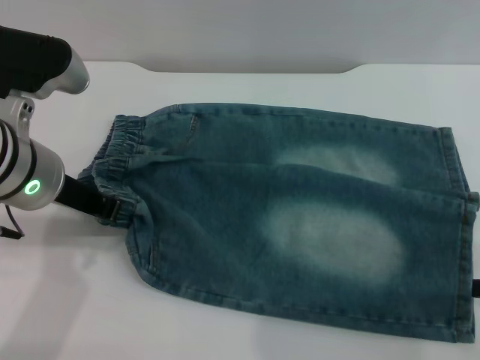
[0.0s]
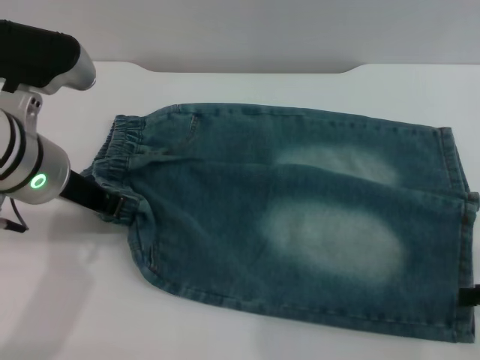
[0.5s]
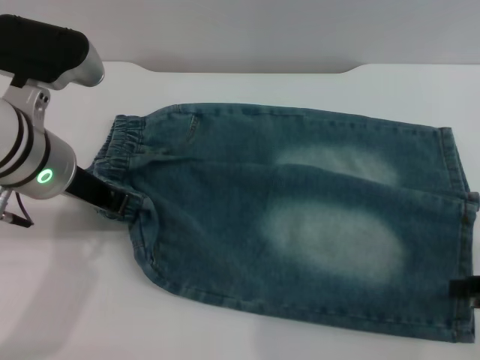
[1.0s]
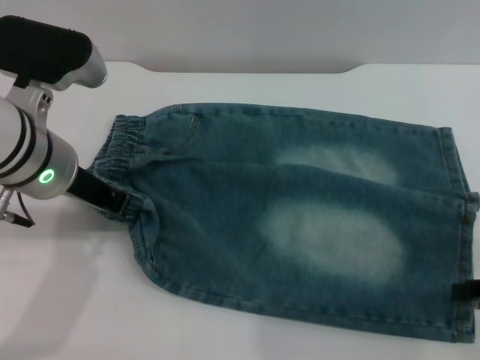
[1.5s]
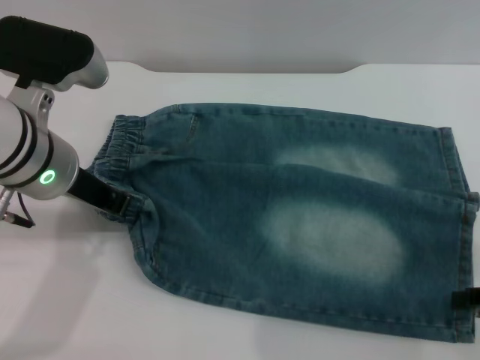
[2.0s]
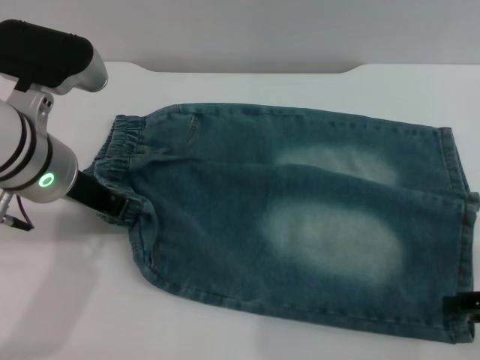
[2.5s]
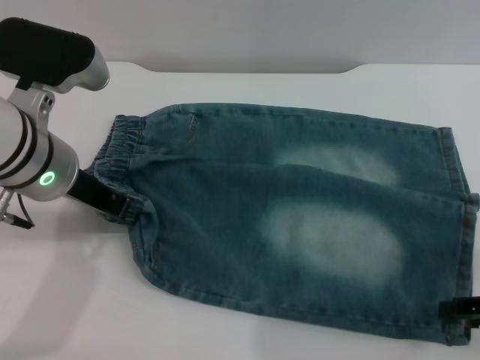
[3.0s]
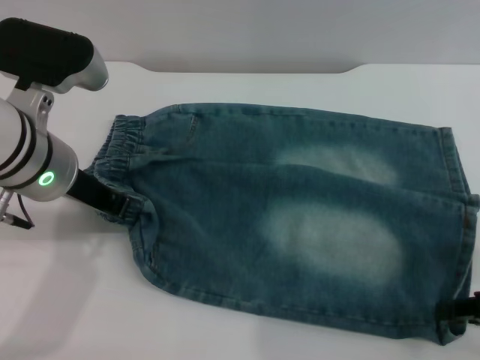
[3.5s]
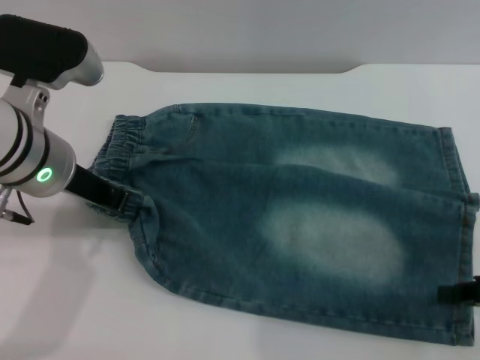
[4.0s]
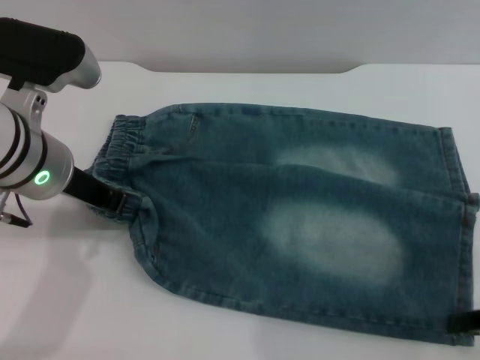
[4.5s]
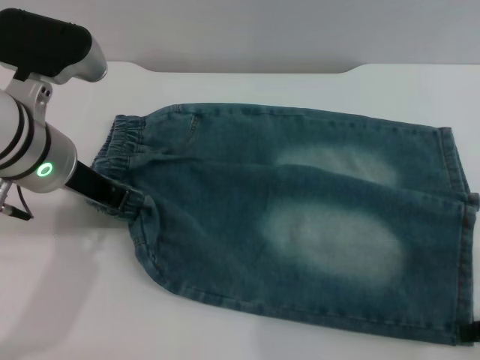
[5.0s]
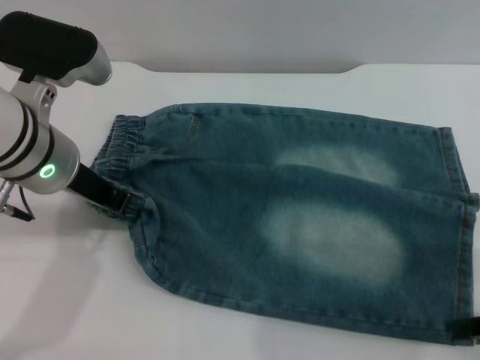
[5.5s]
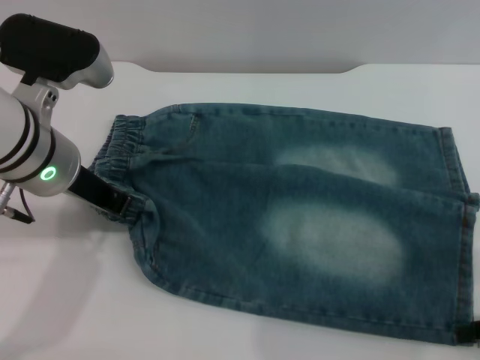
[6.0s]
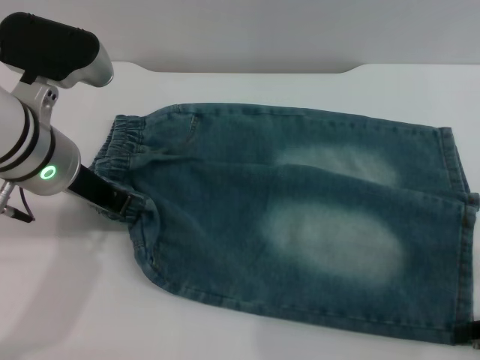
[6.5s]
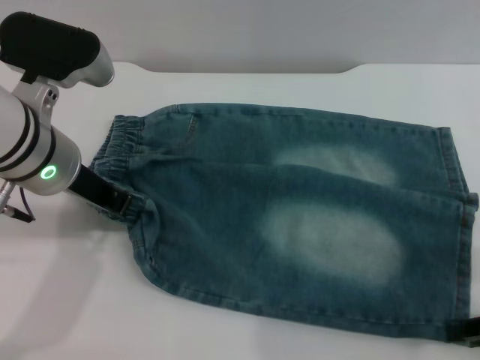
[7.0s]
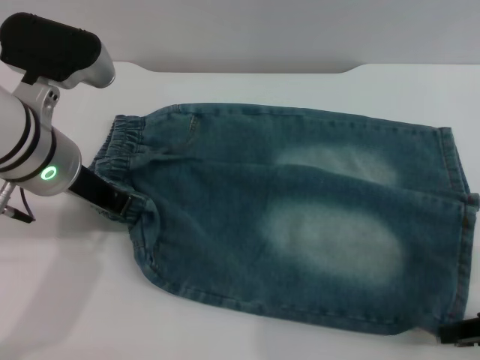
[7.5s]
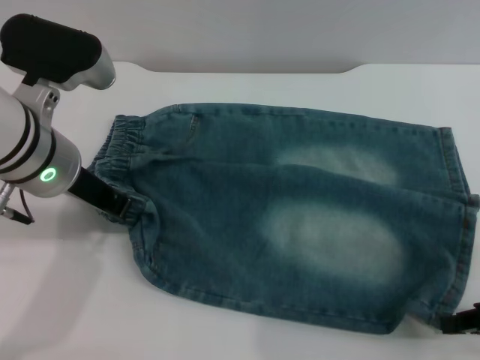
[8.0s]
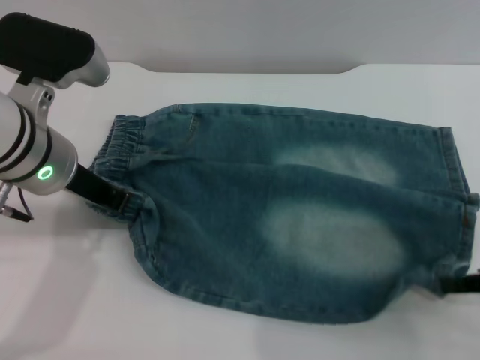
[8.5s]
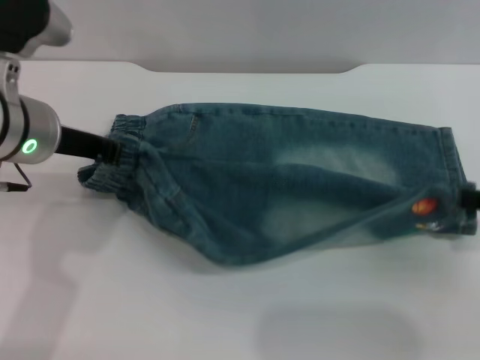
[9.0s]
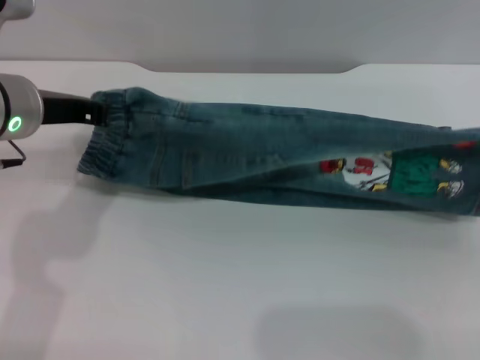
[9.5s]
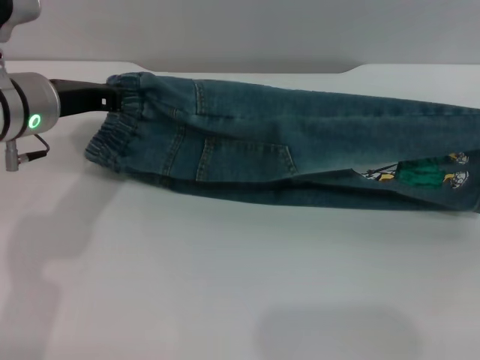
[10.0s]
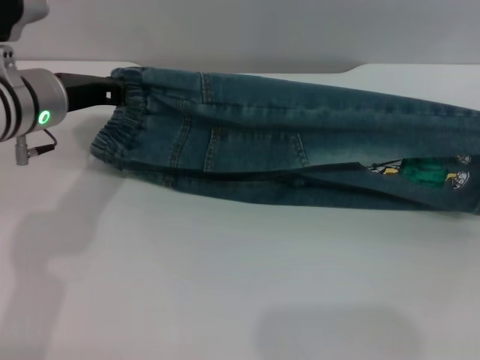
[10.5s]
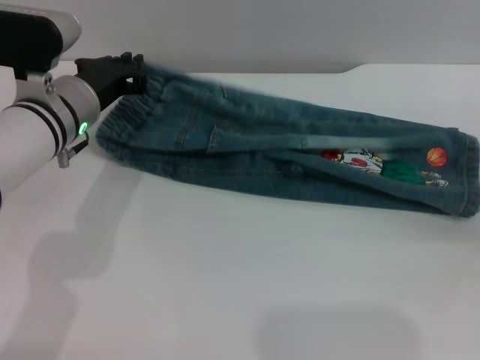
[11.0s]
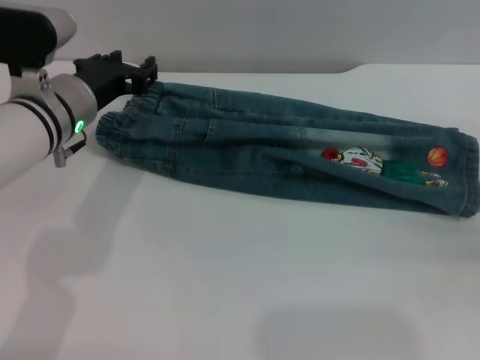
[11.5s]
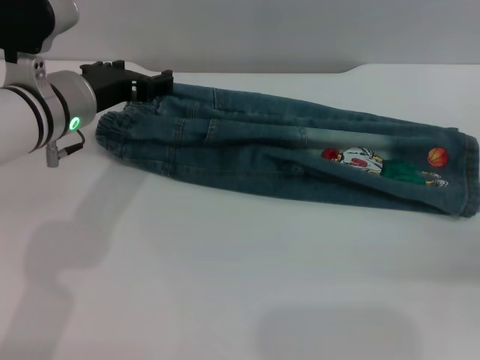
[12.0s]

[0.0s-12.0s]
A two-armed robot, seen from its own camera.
Step, 0.0s to 11.0s: Fold the bottom of the pants upward with both grippers.
0.0s to 2.0s: There are only small adjustments of the grippers.
2.0s to 4.0s: The right gripper closes up.
4.0s to 6.0s: The right gripper opens its fingers.
6.0s to 8.0s: The right gripper closes.
8.0s to 10.0s: The right gripper shifts about 5 cm to the right, while the left gripper changes place by roughly 5 cm.
10.0s to 12.0s: The left gripper opens its fingers, while the right gripper shifts approximately 5 cm downward, and opens its fingers.

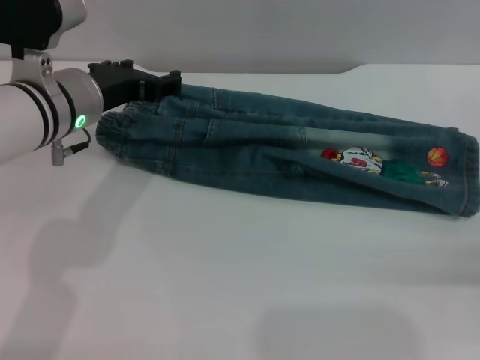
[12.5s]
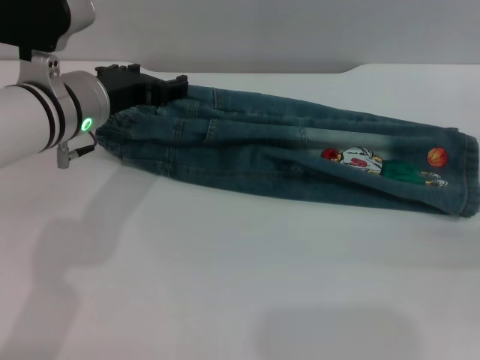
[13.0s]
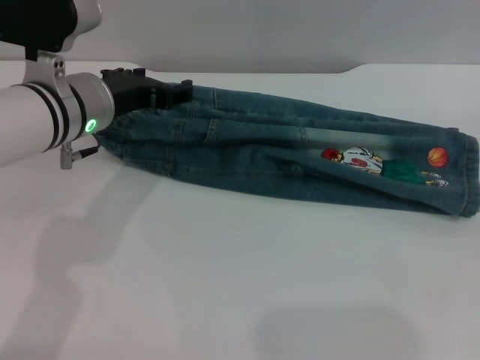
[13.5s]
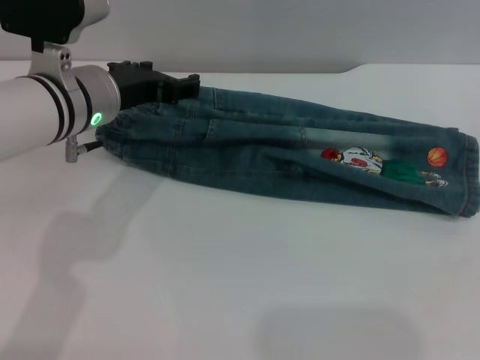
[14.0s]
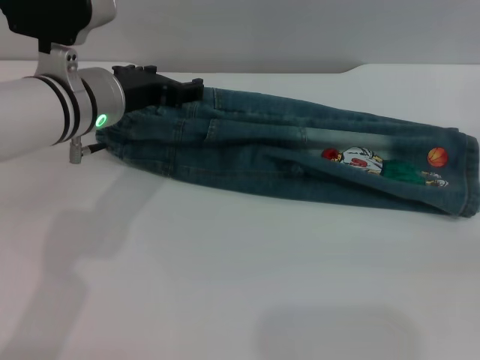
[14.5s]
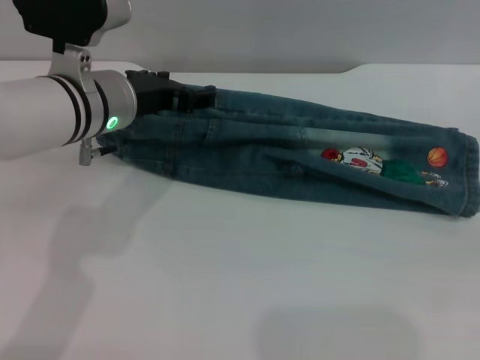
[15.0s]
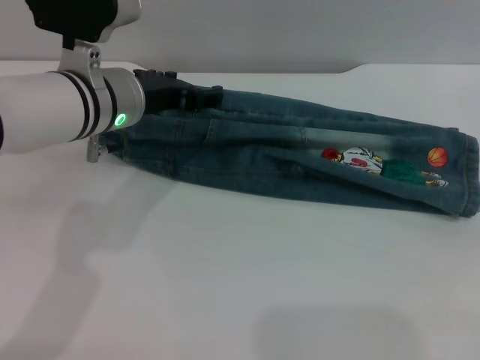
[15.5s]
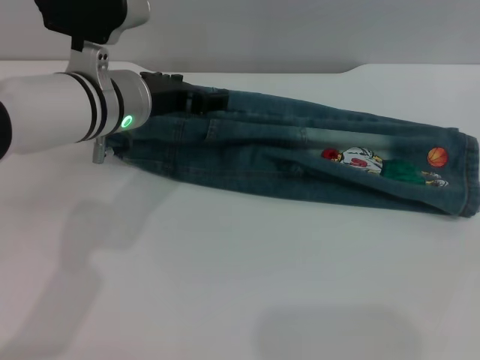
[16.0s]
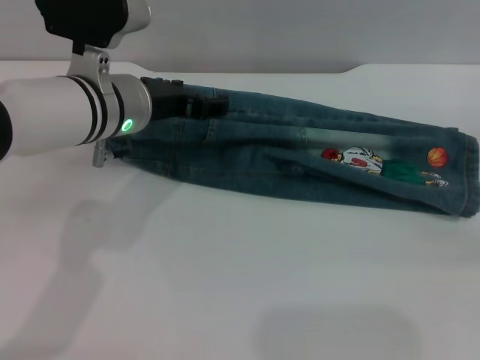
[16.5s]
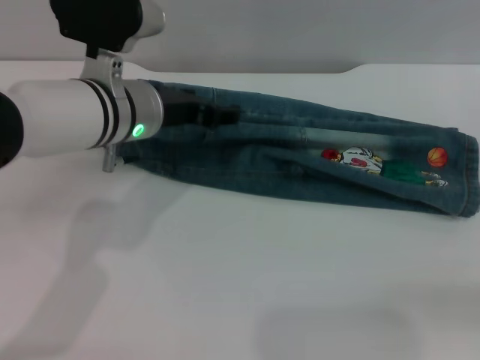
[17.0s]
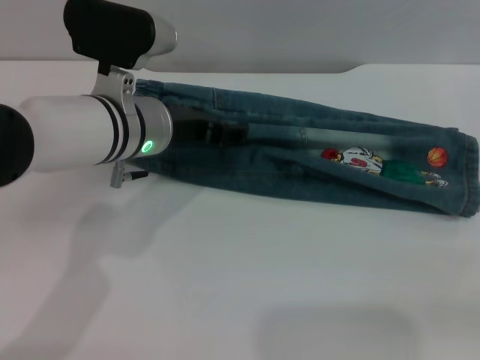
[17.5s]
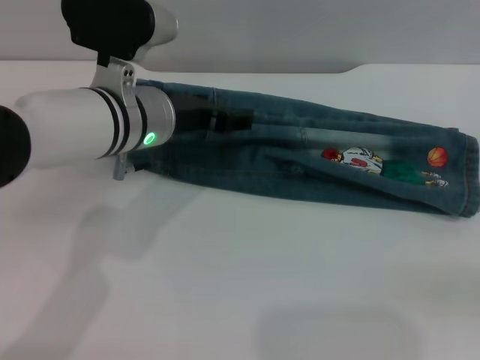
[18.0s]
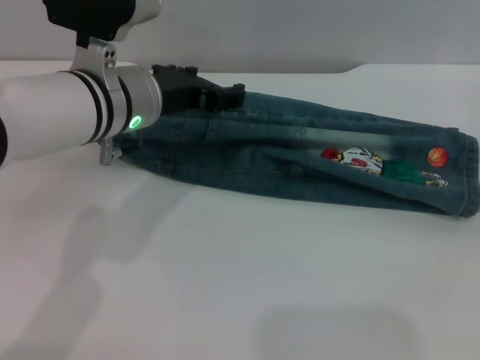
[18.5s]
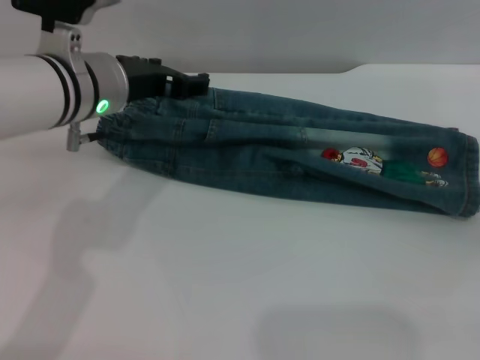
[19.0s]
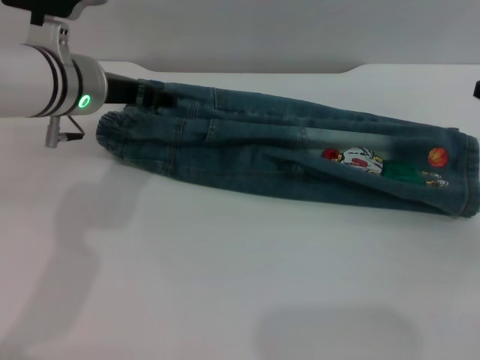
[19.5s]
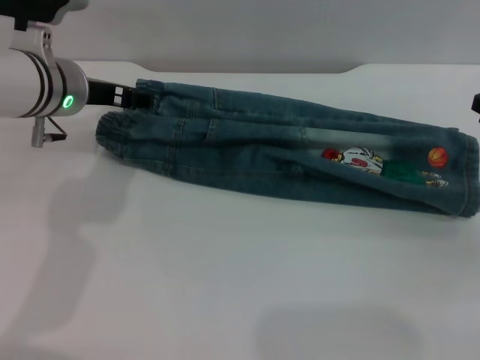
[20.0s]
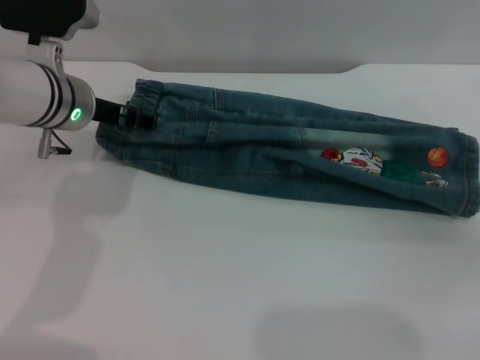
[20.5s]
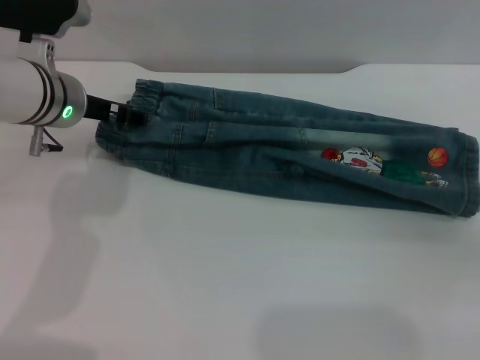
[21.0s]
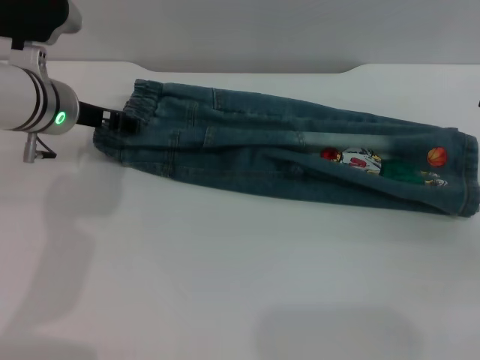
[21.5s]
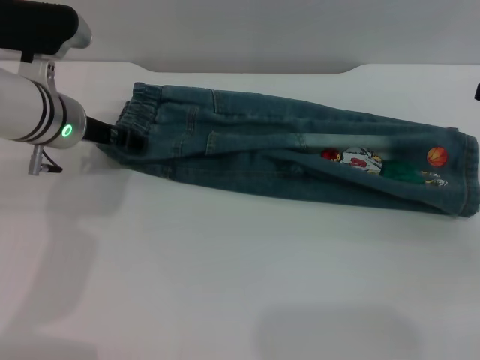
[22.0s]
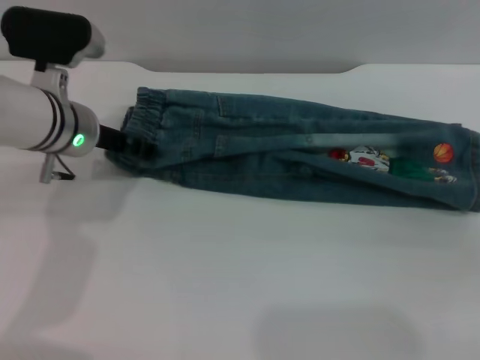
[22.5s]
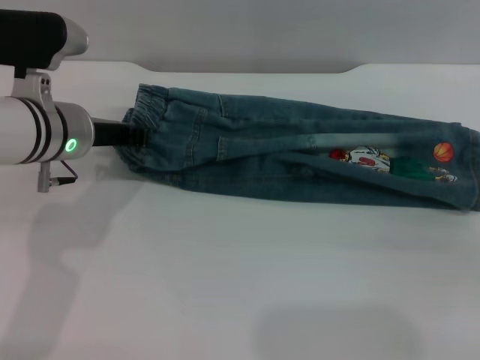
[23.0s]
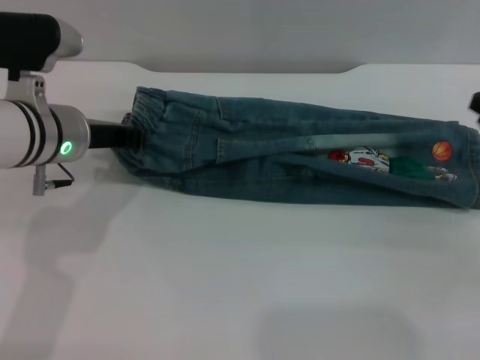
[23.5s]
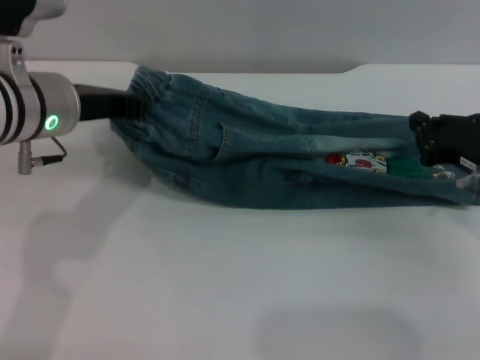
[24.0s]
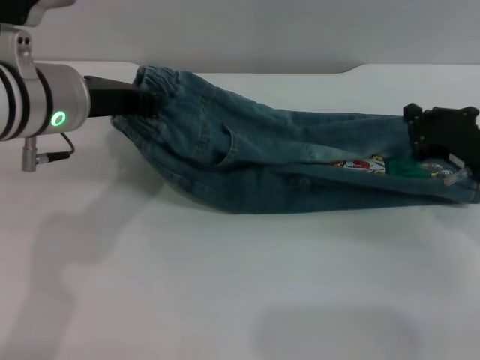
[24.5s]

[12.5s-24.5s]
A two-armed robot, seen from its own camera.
14.5s to 16.5s: The right gripper moves roughly 10 cm to the right and comes back.
16.5s to 18.5s: The right gripper travels backward and back again, some 5 cm each way.
18.5s to 20.5s: The left gripper shifts some 5 cm to the left; the right gripper shifts approximately 10 cm to the left.
20.5s to 22.5s: The grippers stay close to where they were, moving slightly.
22.5s to 24.5s: The left gripper travels upward and backward by approximately 10 cm, and closes its fingers, while the right gripper goes some 10 cm to the left and downward.

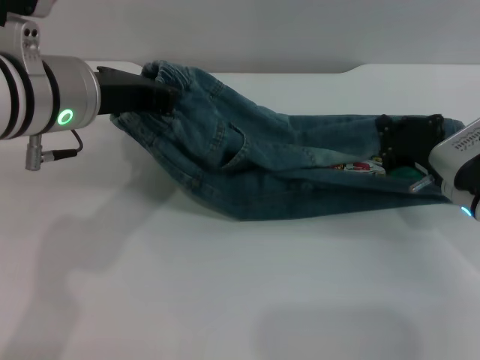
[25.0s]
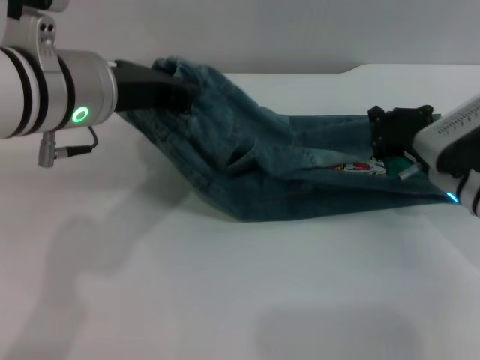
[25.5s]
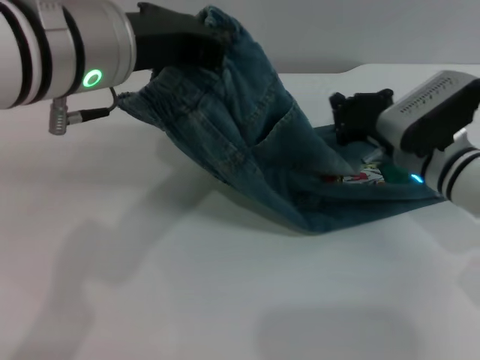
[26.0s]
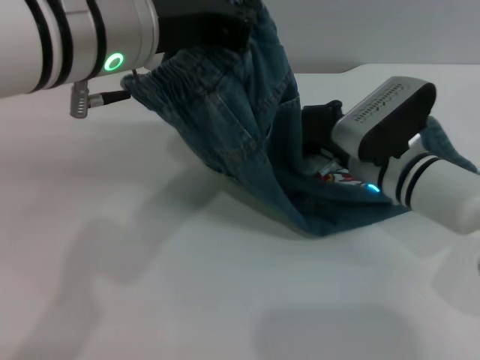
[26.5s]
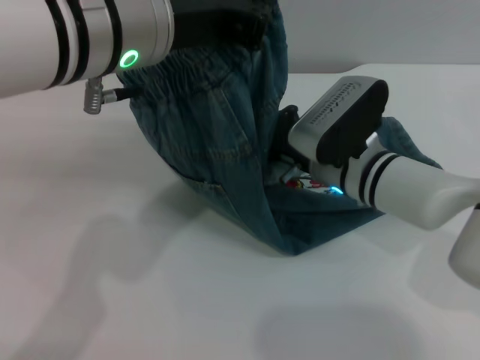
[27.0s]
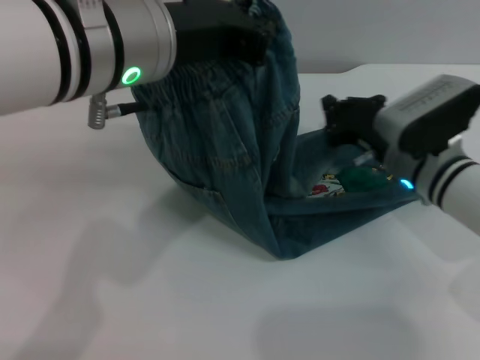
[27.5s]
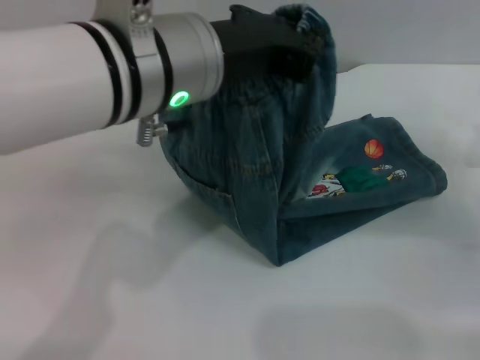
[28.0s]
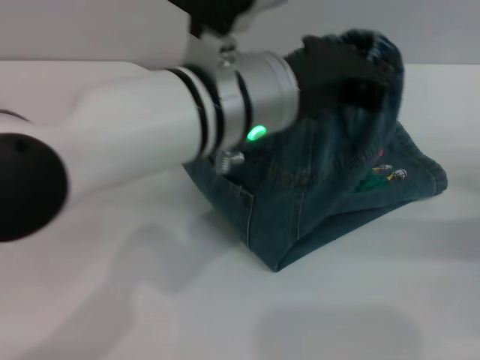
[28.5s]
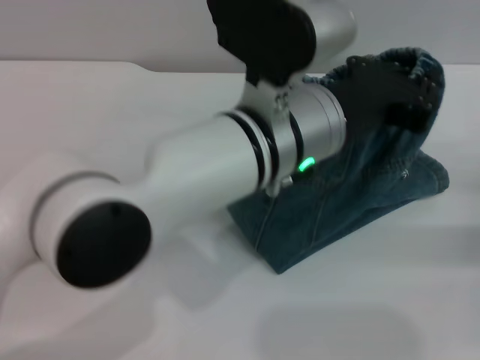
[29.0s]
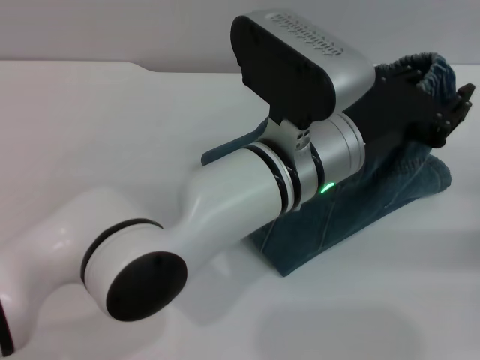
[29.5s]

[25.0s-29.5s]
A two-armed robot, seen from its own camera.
25.0s to 27.0s: The right gripper shifts roughly 15 cm to the left. Meanwhile the left gripper moves upward and to the right, about 10 cm.
27.0s to 29.5s: The right gripper goes about 25 cm to the right. The left gripper travels to the right and downward by some 15 cm.
